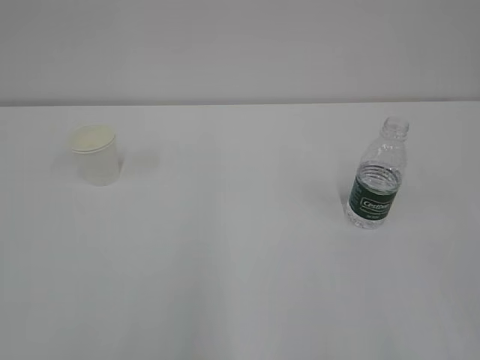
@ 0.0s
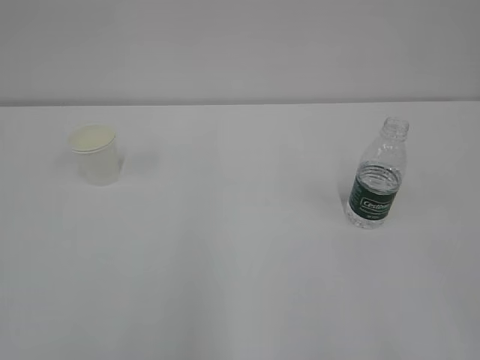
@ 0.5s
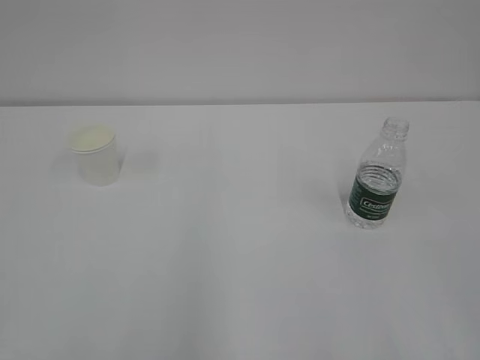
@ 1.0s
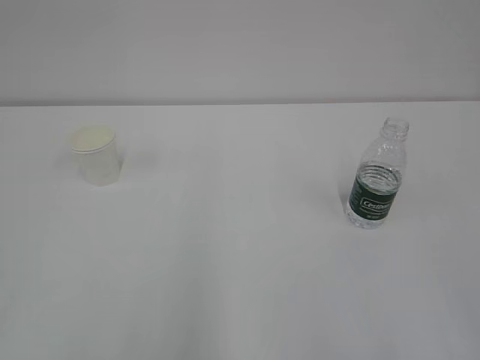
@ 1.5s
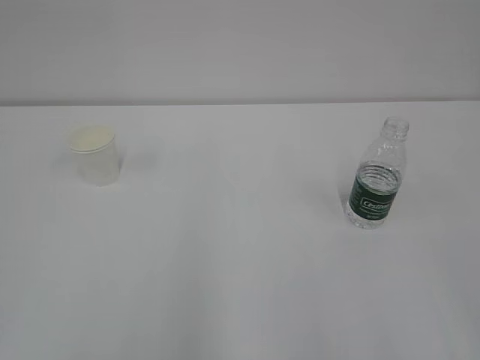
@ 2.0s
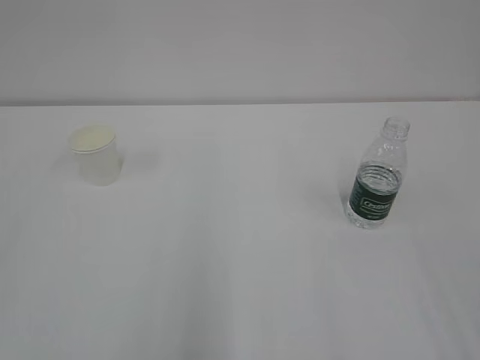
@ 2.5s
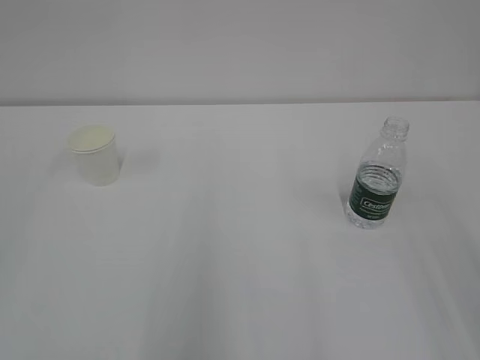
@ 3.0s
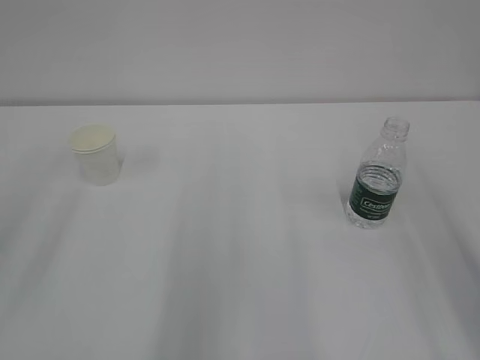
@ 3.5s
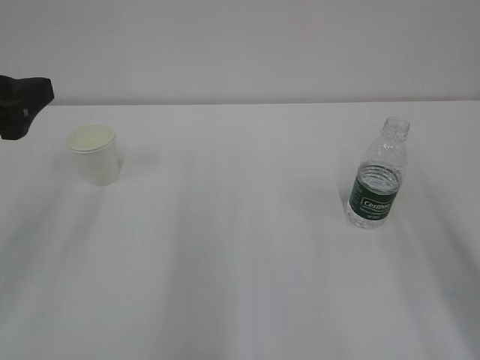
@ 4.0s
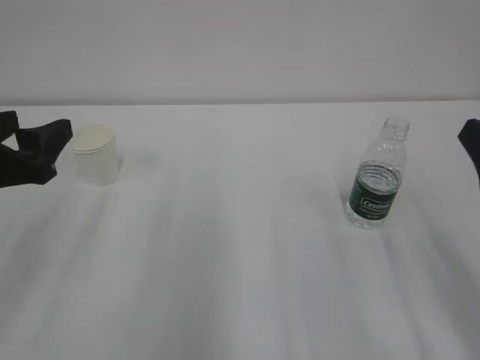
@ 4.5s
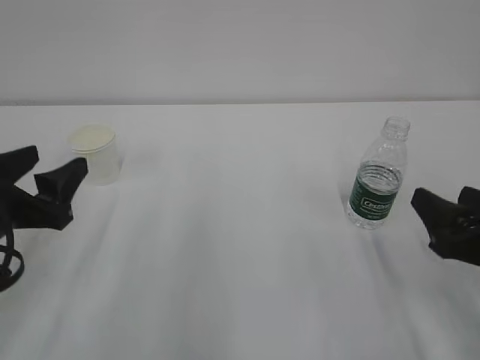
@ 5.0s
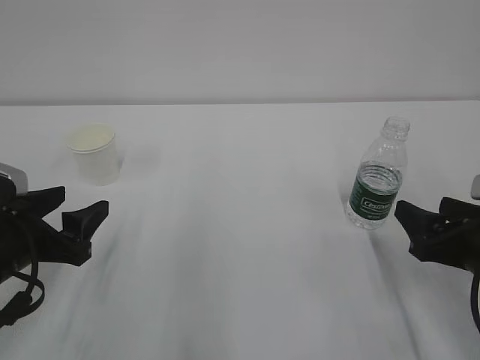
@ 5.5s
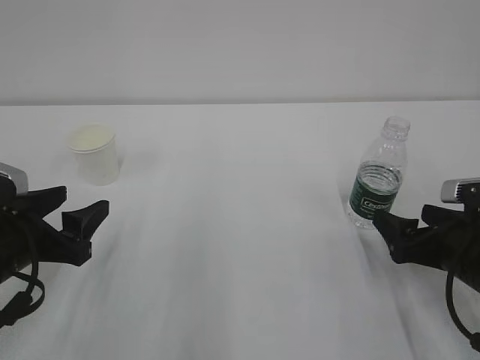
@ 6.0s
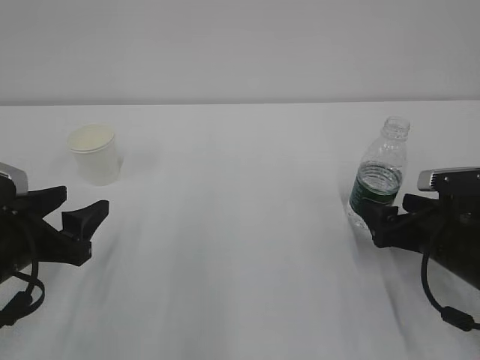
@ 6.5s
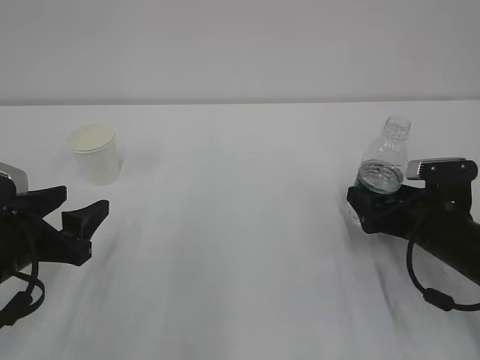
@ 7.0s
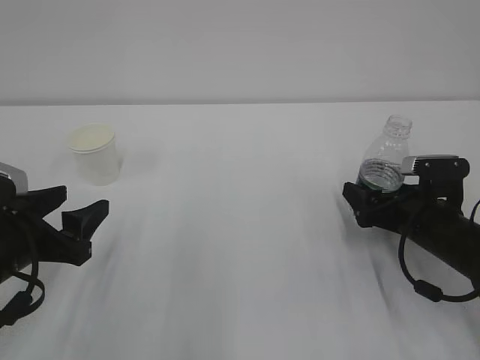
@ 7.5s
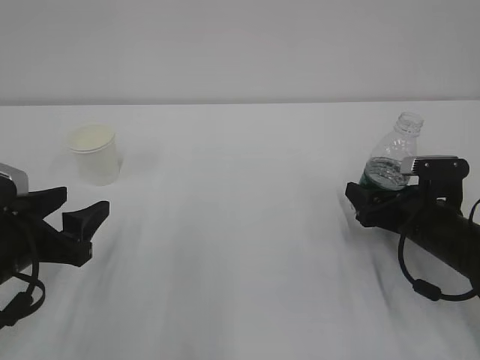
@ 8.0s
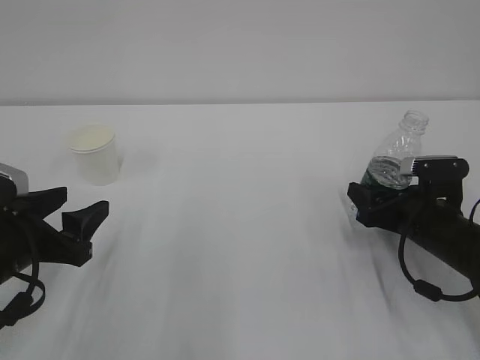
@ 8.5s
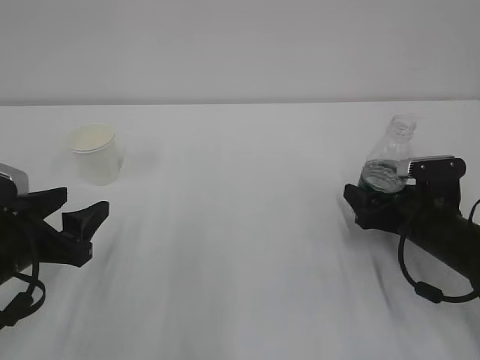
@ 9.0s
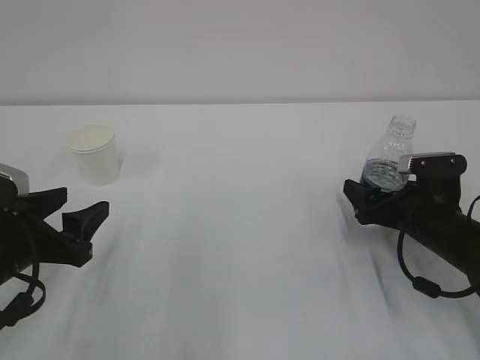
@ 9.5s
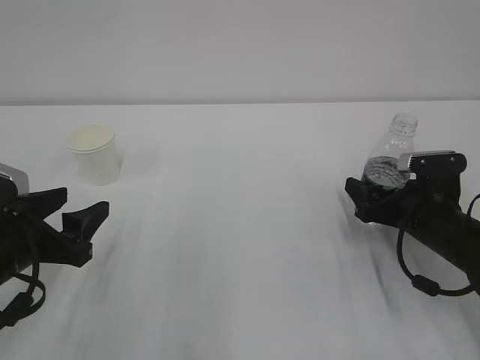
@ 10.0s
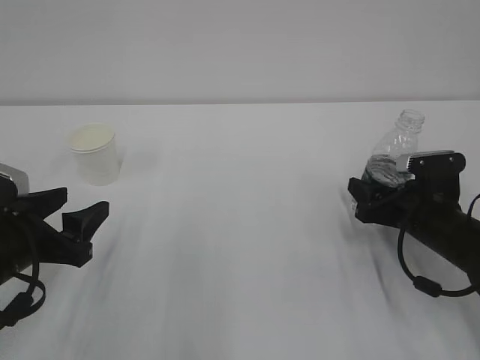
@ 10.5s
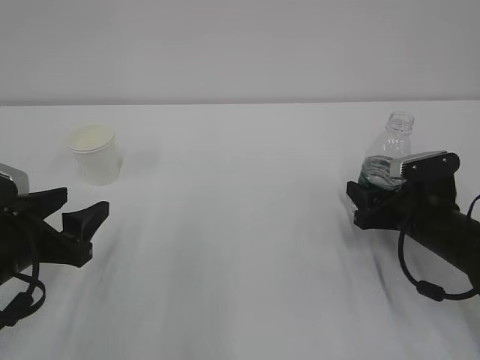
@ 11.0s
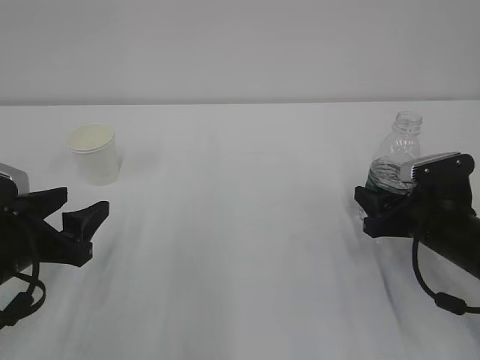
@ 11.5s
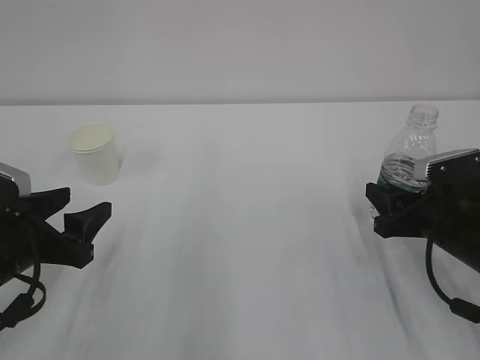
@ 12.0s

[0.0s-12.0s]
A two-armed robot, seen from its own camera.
2.0s to 4.0s: The left gripper heads forward, covering about 25 cm, and opens its fingers.
4.0s to 6.0s: Both grippers move downward, some 15 cm. The right gripper opens its fingers.
6.0s to 8.0s: The right gripper heads forward, covering some 5 cm, and closes up.
8.0s to 10.0s: The two grippers keep their place.
10.0s to 12.0s: The right gripper shifts by about 5 cm, and closes its fingers.

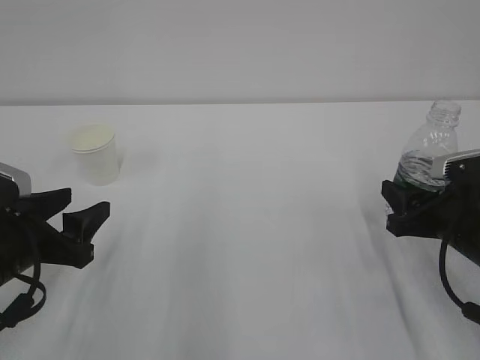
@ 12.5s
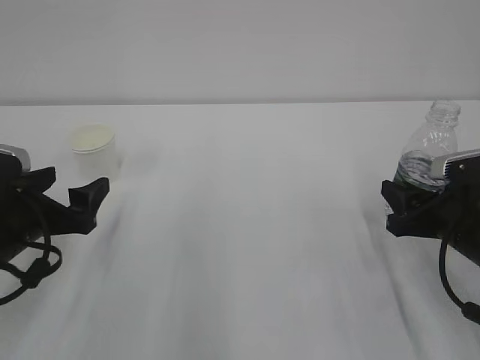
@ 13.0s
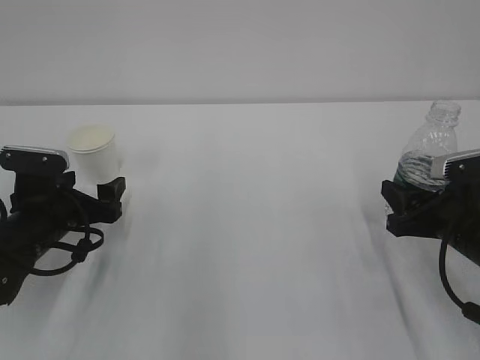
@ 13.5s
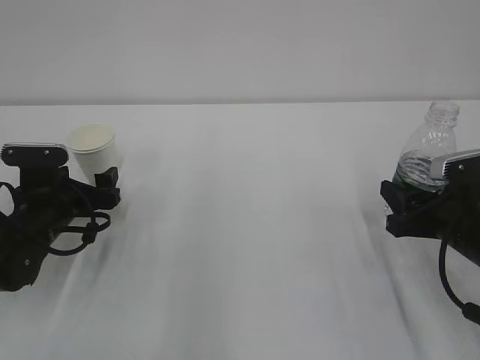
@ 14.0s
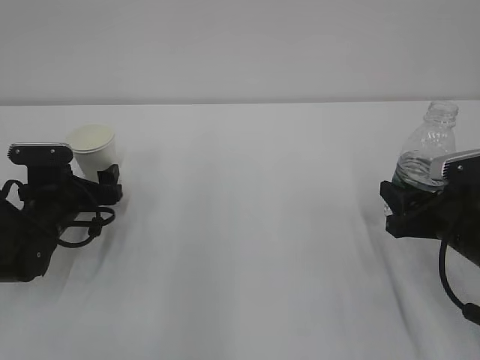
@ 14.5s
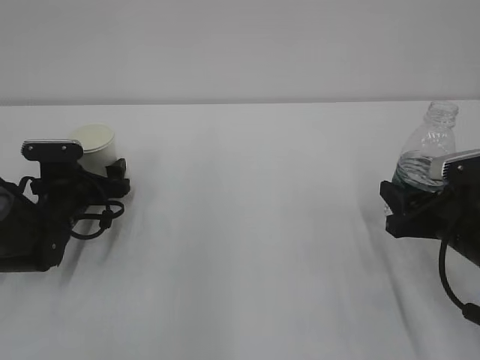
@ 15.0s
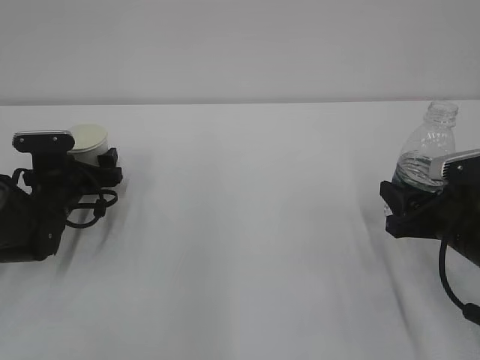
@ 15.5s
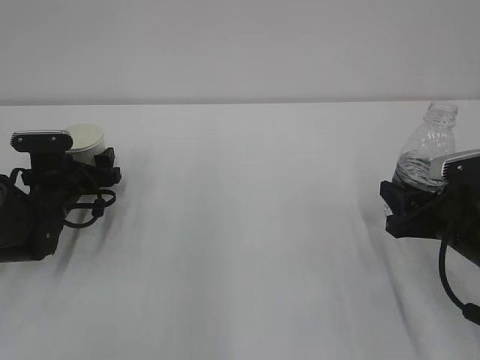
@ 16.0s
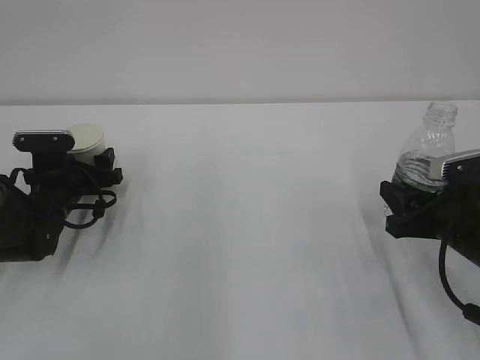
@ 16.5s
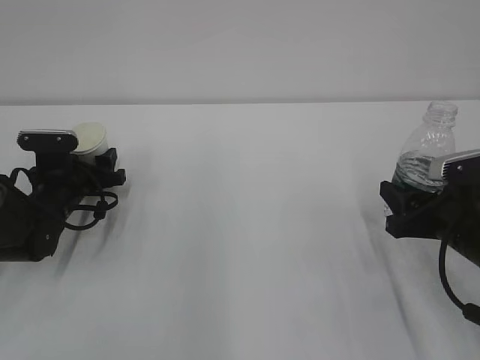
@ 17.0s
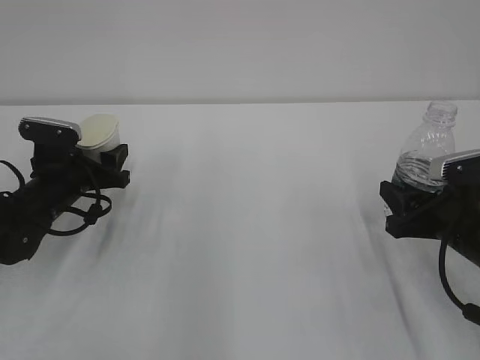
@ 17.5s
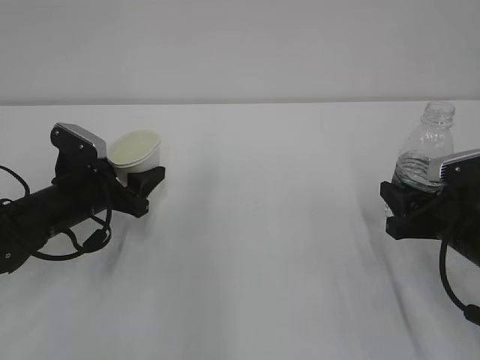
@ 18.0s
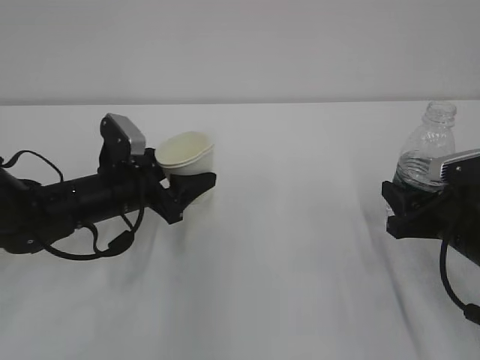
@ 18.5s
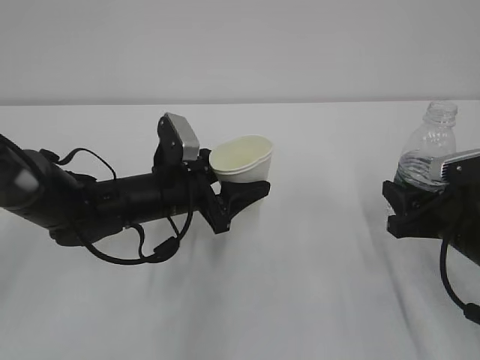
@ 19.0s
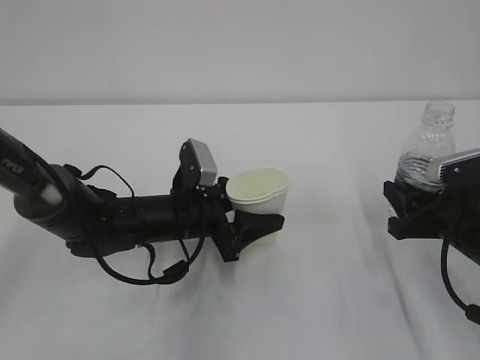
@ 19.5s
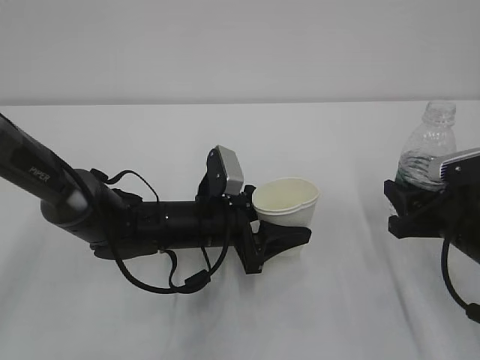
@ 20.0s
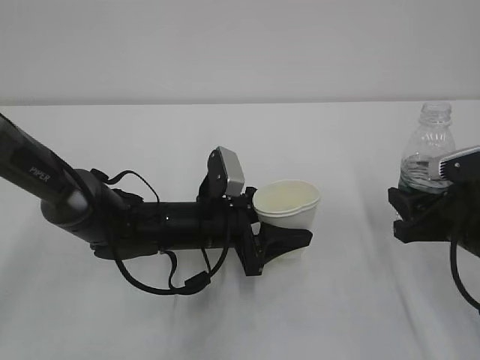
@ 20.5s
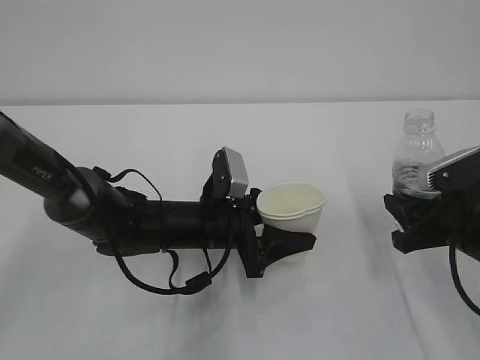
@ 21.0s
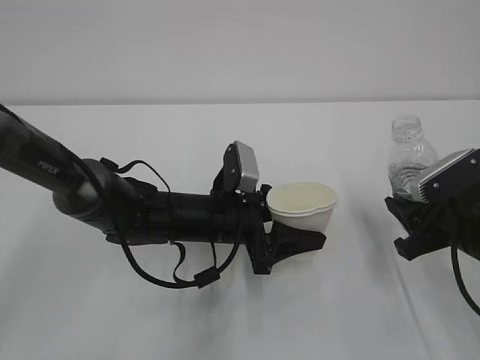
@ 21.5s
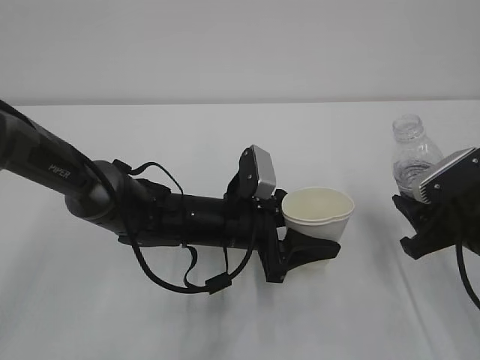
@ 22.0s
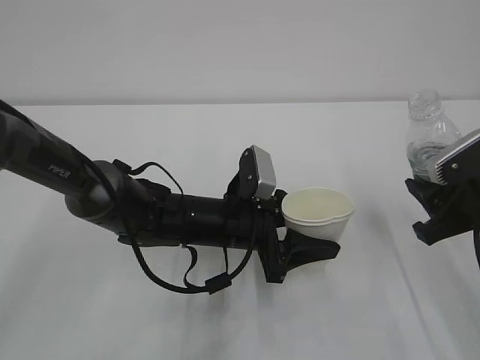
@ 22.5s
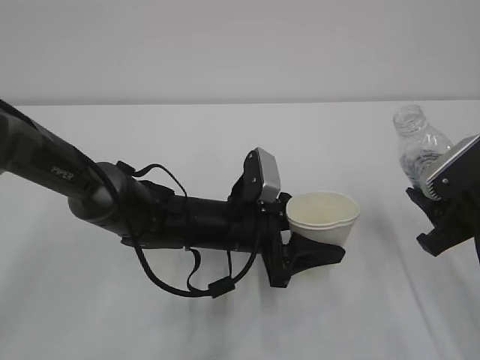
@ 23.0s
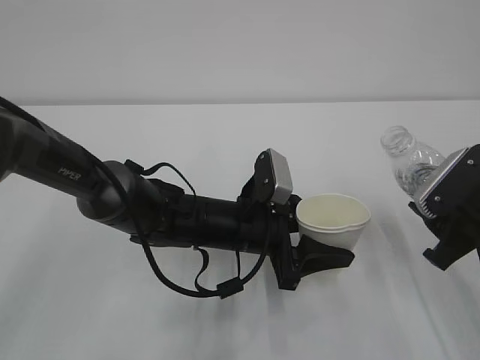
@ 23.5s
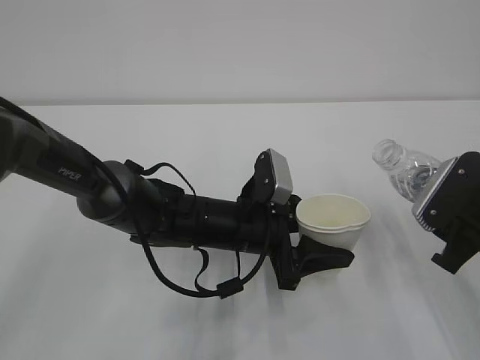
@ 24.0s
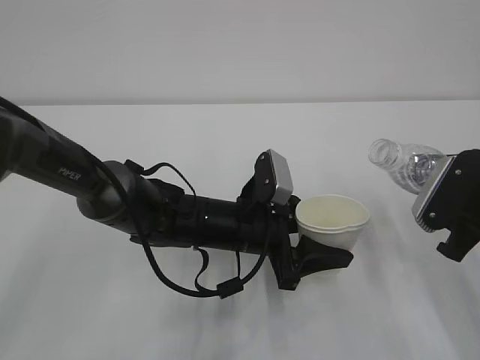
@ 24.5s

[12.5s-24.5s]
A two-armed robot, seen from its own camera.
12.5s to 14.5s: The left gripper heads forward and downward, covering roughly 15 cm, and opens up.
14.5s to 16.5s: The left gripper closes up.
16.5s to 18.5s: The left gripper goes approximately 10 cm to the right and backward.
18.5s to 20.5s: The left gripper shifts some 10 cm to the right.

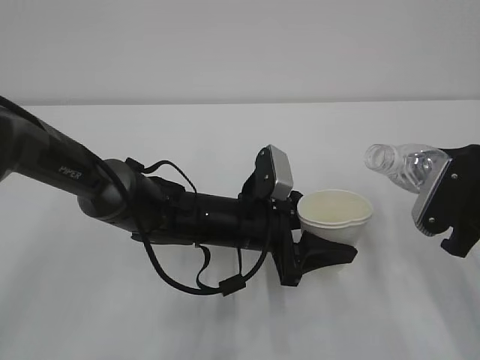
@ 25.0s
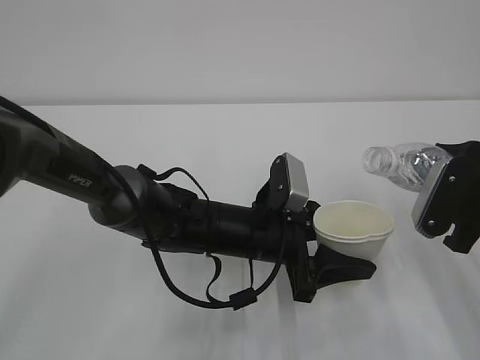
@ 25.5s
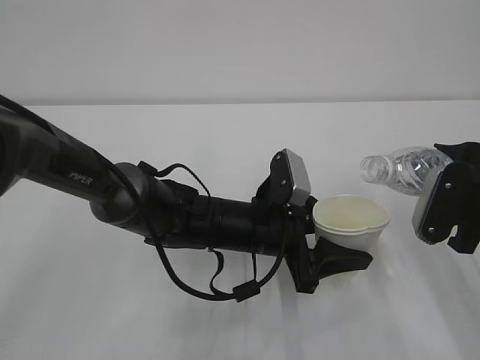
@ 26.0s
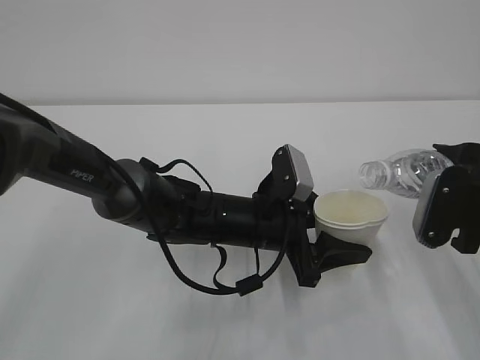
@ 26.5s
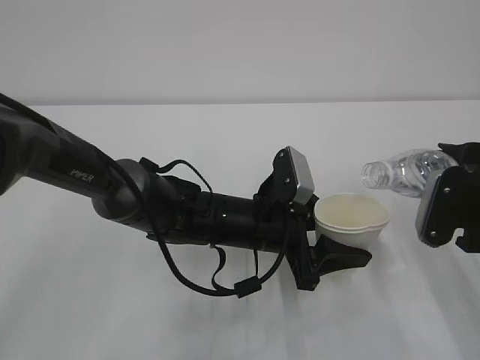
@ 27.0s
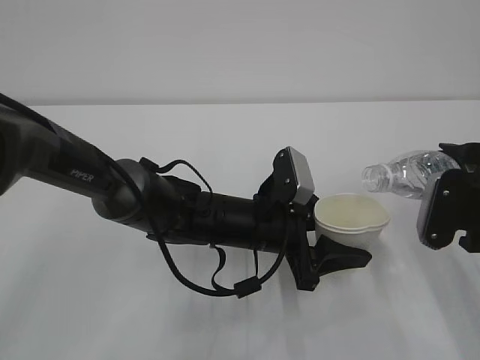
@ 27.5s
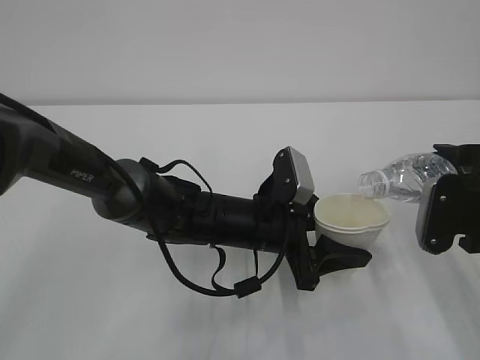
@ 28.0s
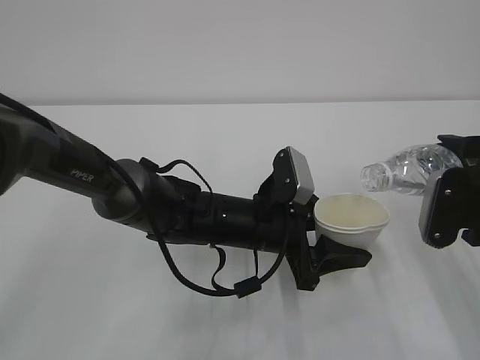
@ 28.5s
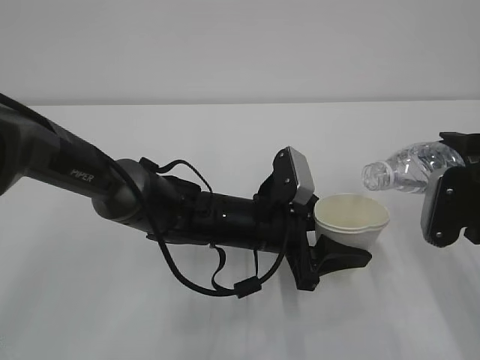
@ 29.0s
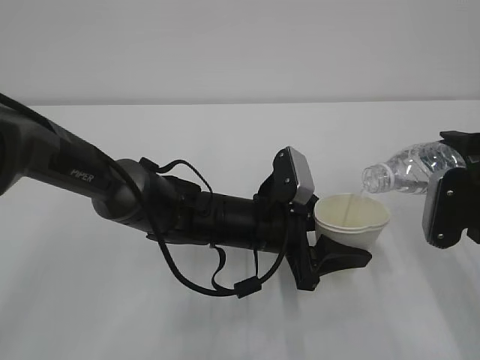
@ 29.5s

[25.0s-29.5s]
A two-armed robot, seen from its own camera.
25.0s to 27.0s: The grippers move only a little.
27.0s to 29.5s: The grippers make only small movements.
